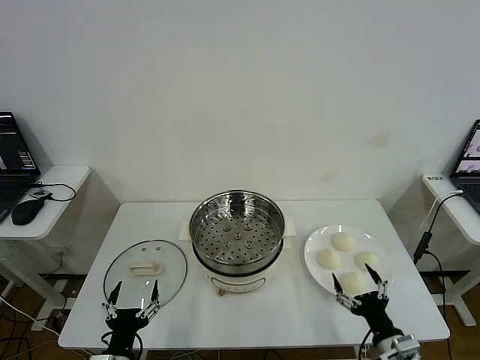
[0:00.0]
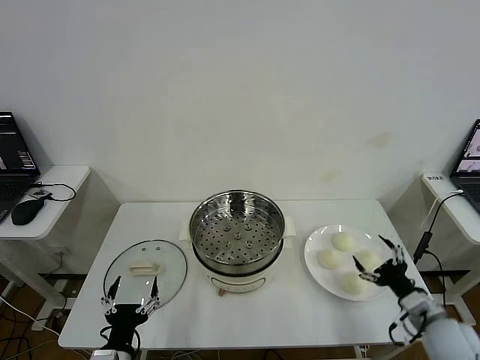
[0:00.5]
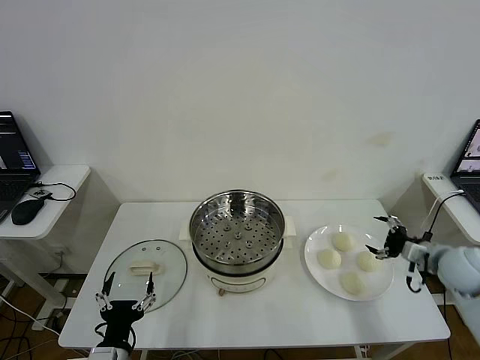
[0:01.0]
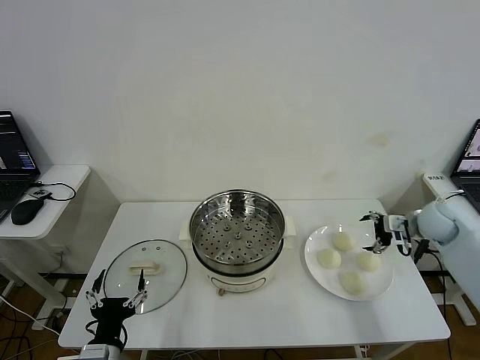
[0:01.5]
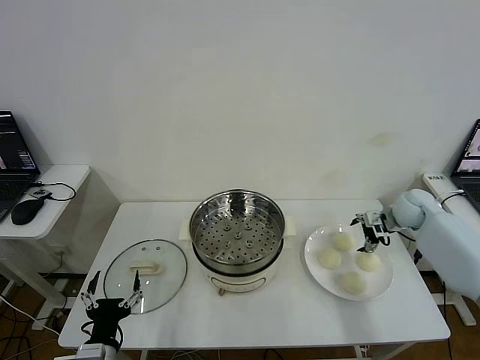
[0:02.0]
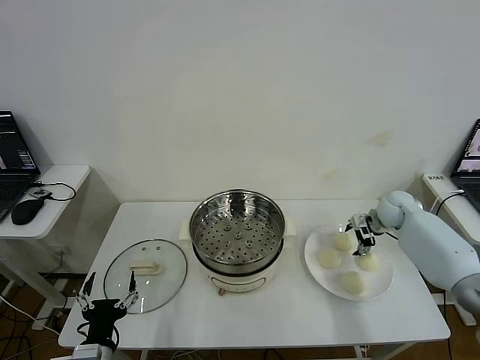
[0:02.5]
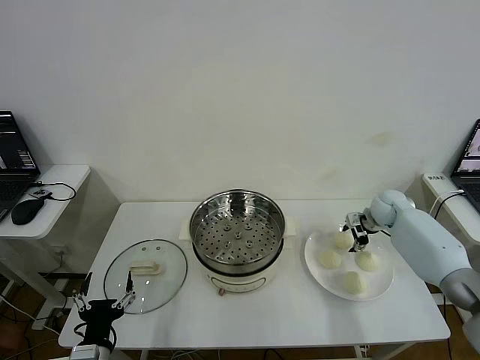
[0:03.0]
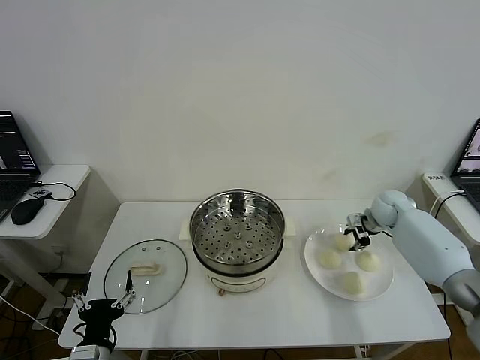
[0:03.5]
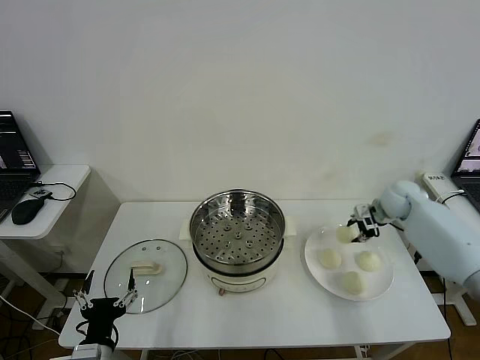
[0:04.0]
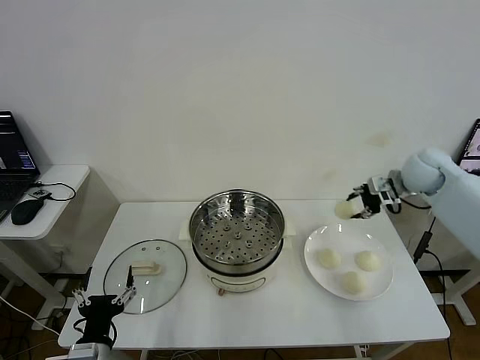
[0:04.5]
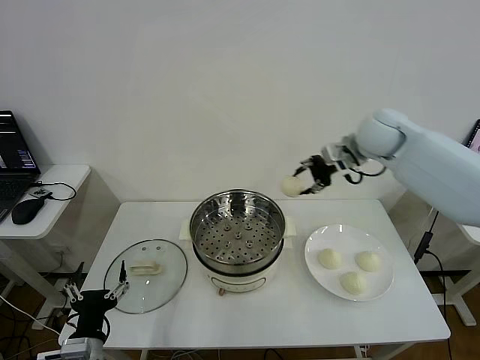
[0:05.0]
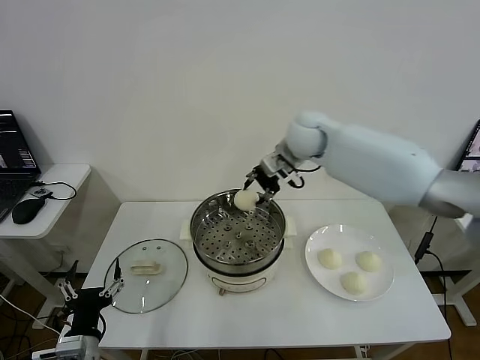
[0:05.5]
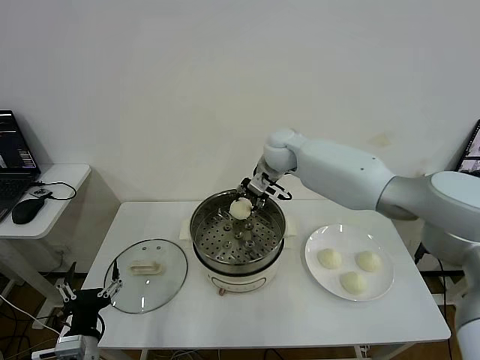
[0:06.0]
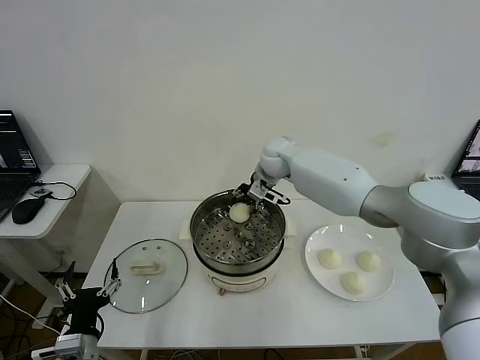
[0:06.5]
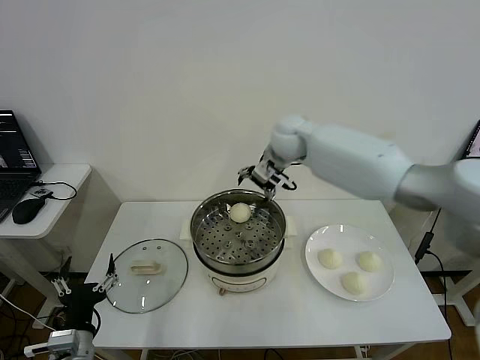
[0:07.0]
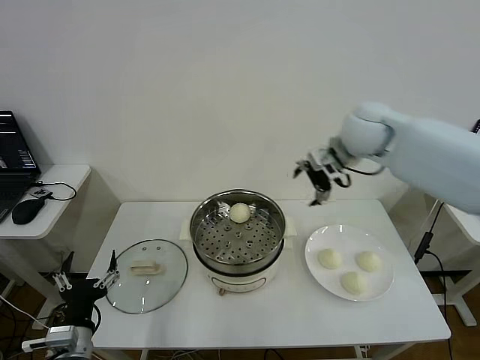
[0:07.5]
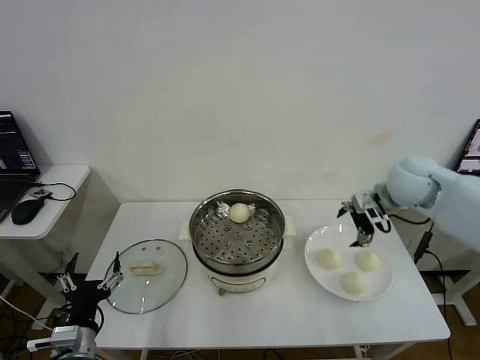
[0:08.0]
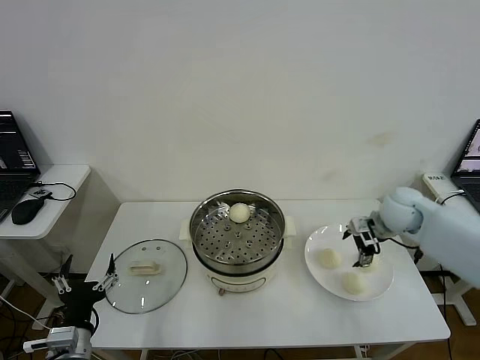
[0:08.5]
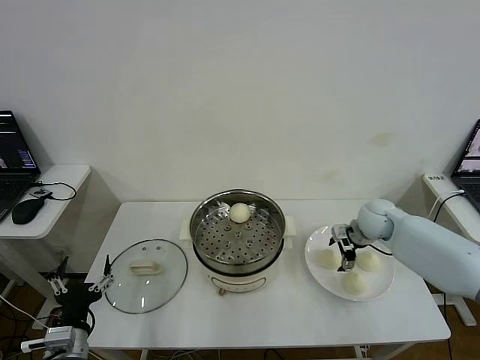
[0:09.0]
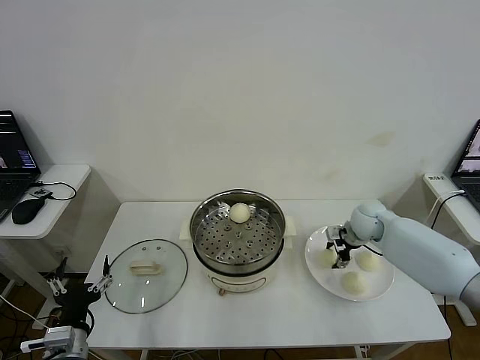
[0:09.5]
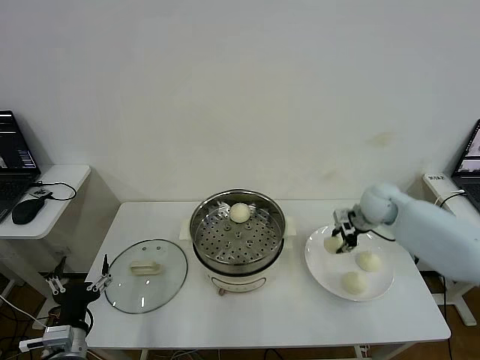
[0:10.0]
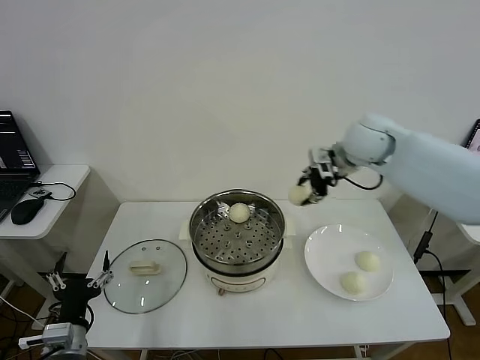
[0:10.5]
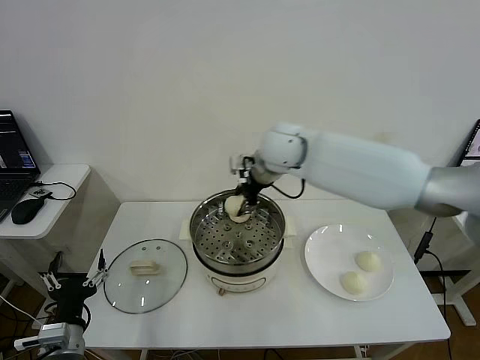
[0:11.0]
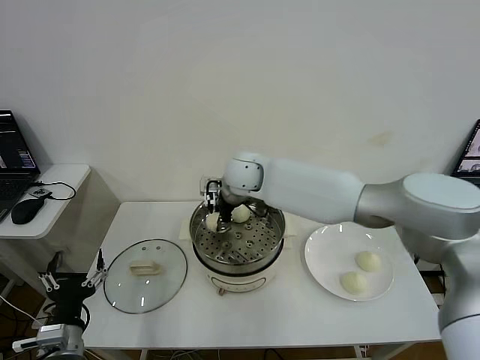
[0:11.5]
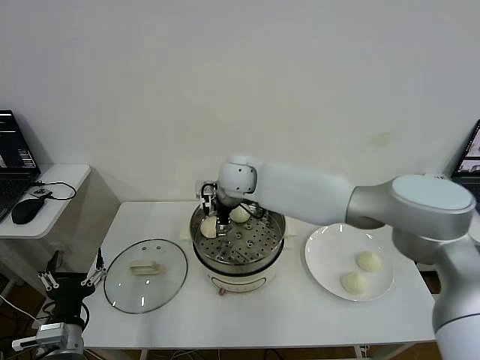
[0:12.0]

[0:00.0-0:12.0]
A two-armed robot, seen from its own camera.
Step, 0:00.0 to 0:03.5: Grasp the baozi in the plate with right gripper.
Step, 0:04.0 to 0:06.5: Place the baozi on the steamer with right gripper.
Step, 0:07.0 to 0:09.5: Grasp the baozi in the plate with right gripper.
Step, 0:10.0 to 0:12.0: Place the baozi on the steamer with right gripper.
0:02.0 to 0:04.0: The right gripper closes.
0:04.0 to 0:06.0: The right gripper heads to the left, covering roughly 30 cm.
0:06.0 to 0:08.0: The right gripper heads to the right and backward, covering approximately 30 cm, and opens its fingers.
0:08.0 to 0:10.0: The right gripper travels downward and forward by approximately 10 cm, and closes.
0:10.0 to 0:12.0: The right gripper travels to the left by about 35 cm, and opens up.

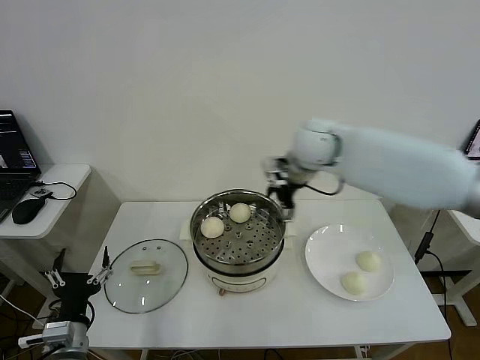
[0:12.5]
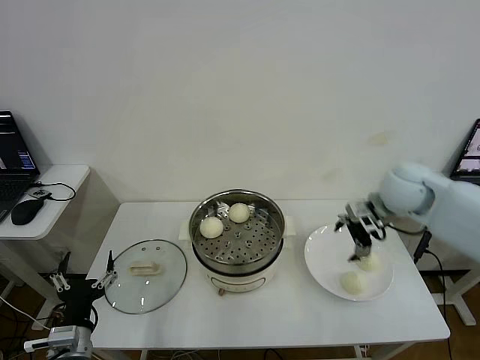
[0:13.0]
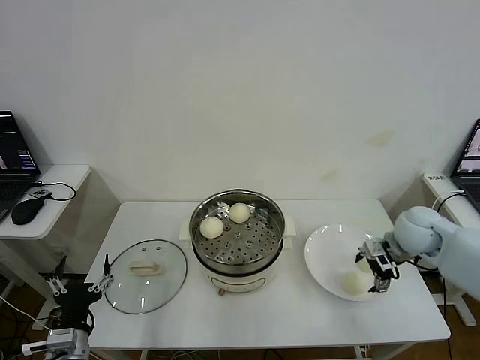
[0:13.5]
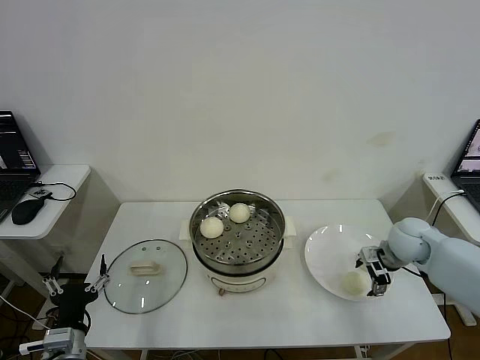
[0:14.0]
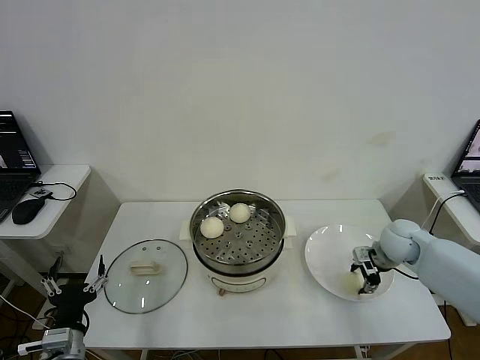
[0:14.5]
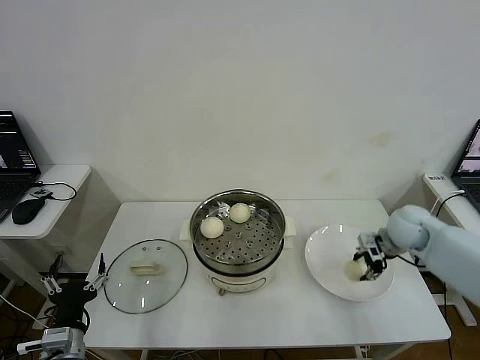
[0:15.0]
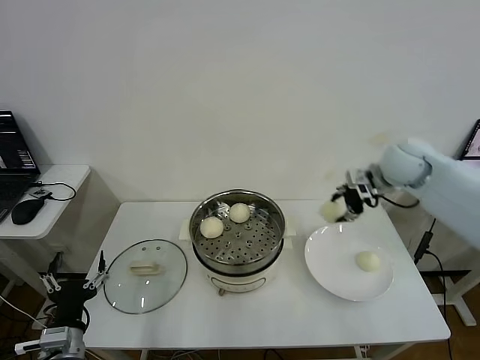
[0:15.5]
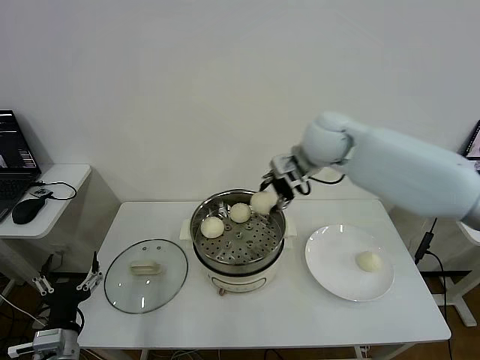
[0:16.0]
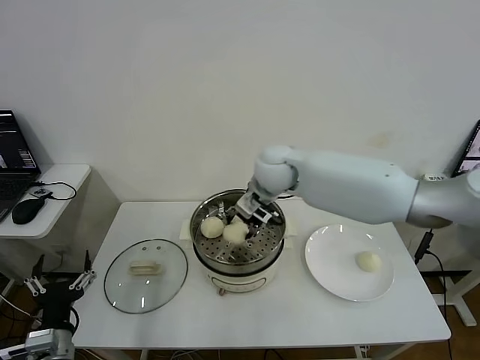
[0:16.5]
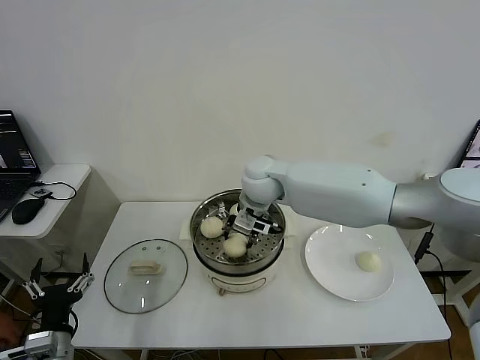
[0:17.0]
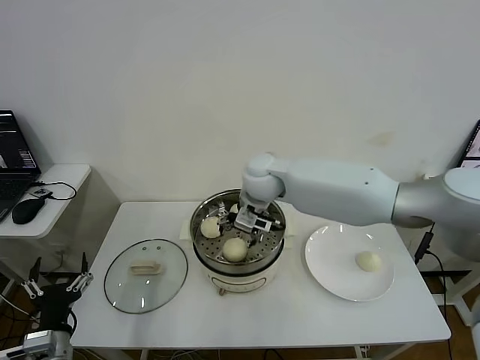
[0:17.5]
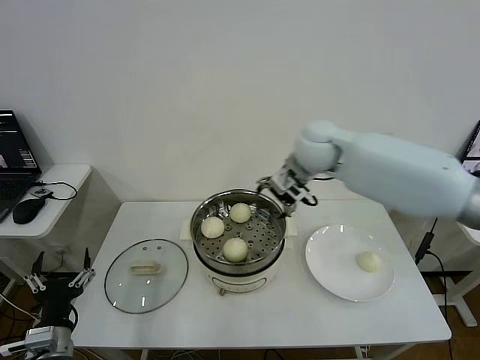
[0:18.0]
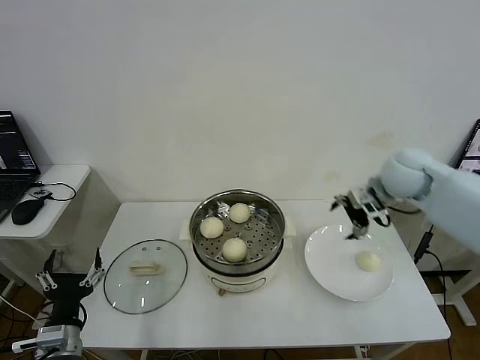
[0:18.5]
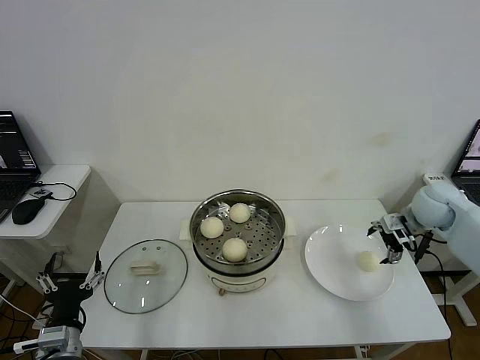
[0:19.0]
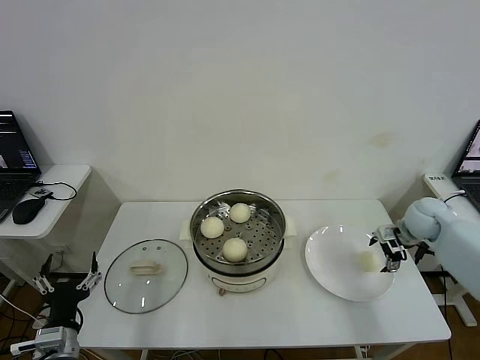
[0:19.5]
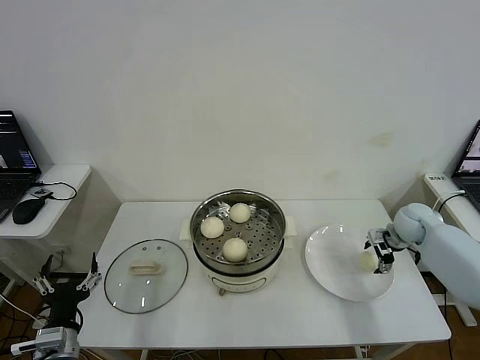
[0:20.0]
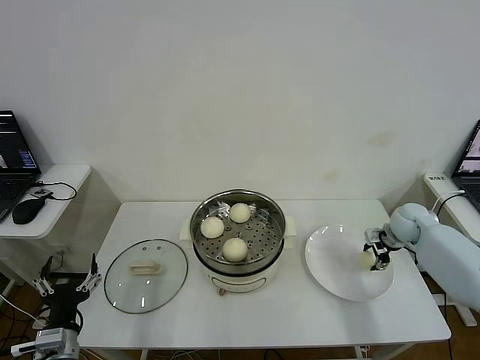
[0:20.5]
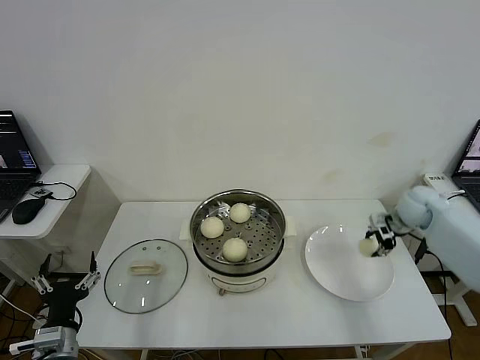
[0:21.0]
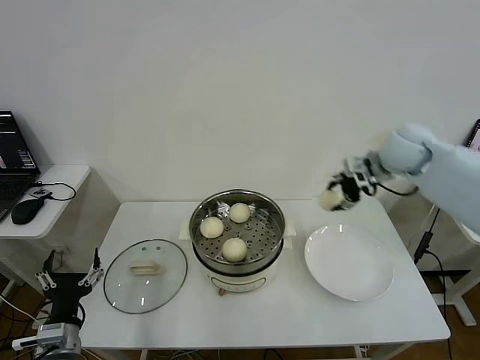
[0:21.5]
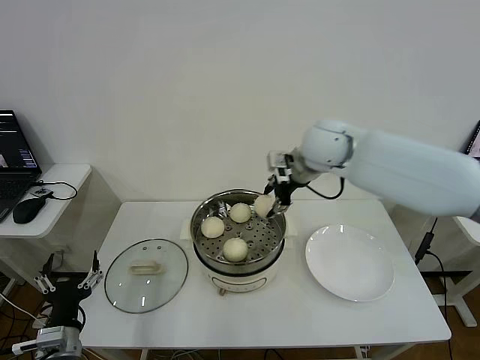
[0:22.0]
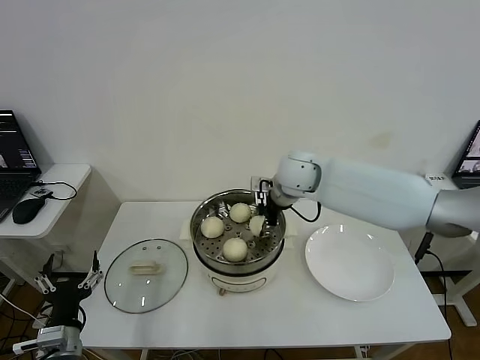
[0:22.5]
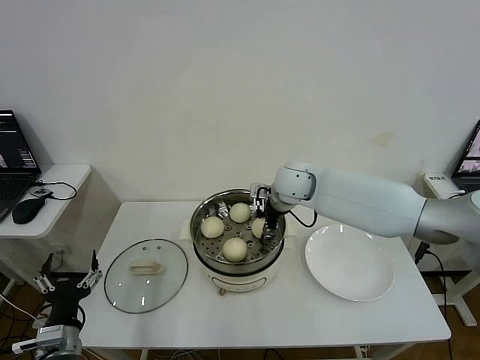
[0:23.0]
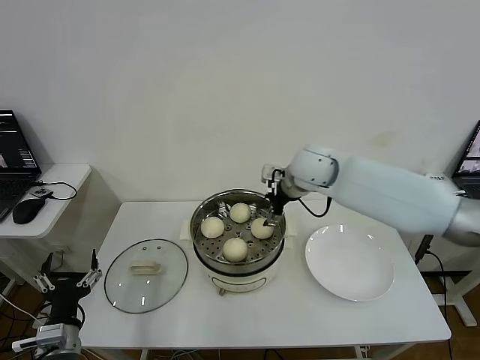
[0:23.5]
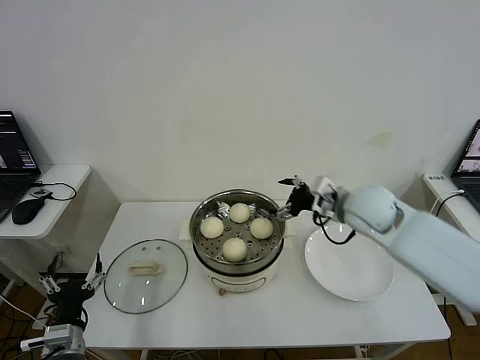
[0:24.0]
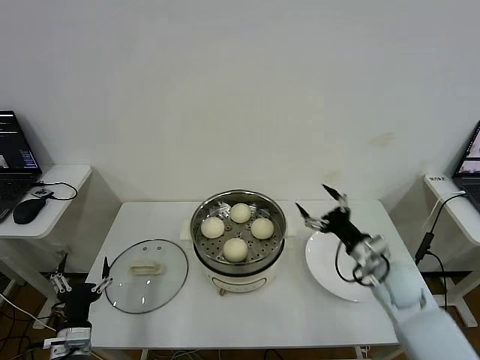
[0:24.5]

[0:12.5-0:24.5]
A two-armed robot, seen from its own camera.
Step, 0:12.5 to 0:14.5: Grasp the baozi in the plate with right gripper.
Step, 0:15.0 to 0:17.0: Place the baozi on the steamer with right gripper.
Step, 0:17.5 to 0:20.5: Grasp the baozi in the plate with right gripper.
Step, 0:21.0 to 0:23.0: Place the baozi on the steamer with right gripper.
0:12.5 to 0:14.5: The right gripper goes about 30 cm downward and to the right, and closes its fingers.
0:14.5 to 0:16.5: The right gripper shifts roughly 35 cm to the left and upward.
0:16.5 to 0:18.5: The right gripper travels to the right by approximately 25 cm, and opens its fingers.
0:18.5 to 0:20.5: The right gripper is displaced downward and to the right by about 20 cm, and closes.
0:20.5 to 0:22.5: The right gripper moves to the left and upward, some 35 cm.
0:22.5 to 0:24.5: The right gripper shifts some 30 cm to the right, backward and downward, and opens its fingers.

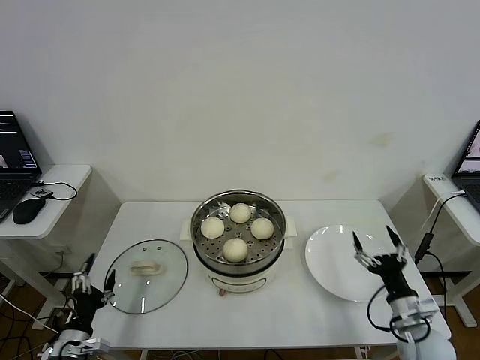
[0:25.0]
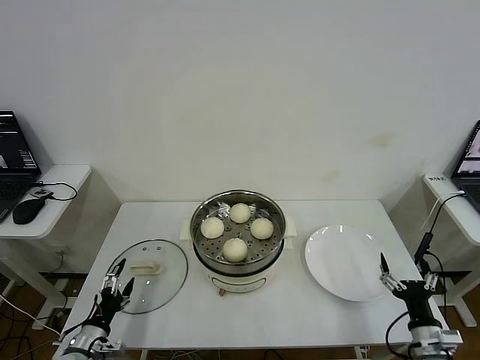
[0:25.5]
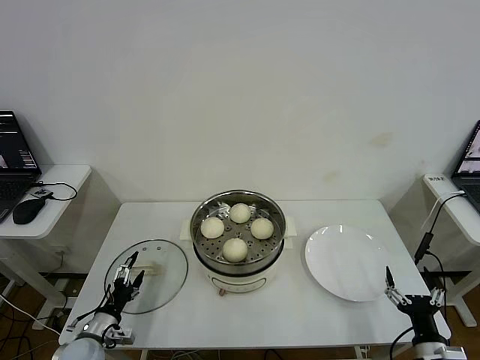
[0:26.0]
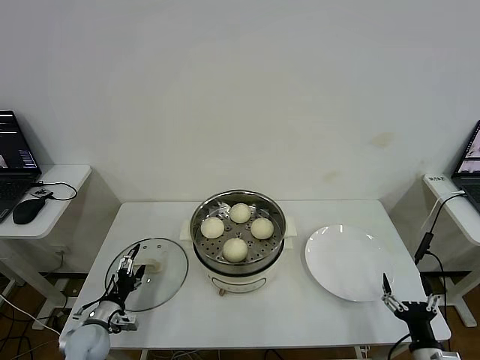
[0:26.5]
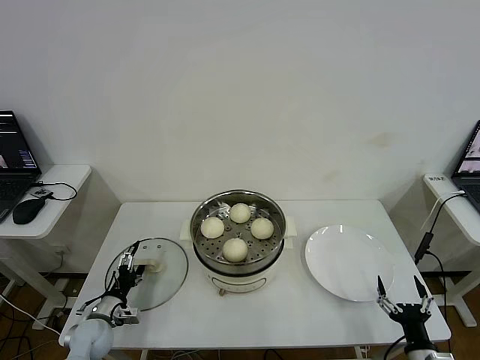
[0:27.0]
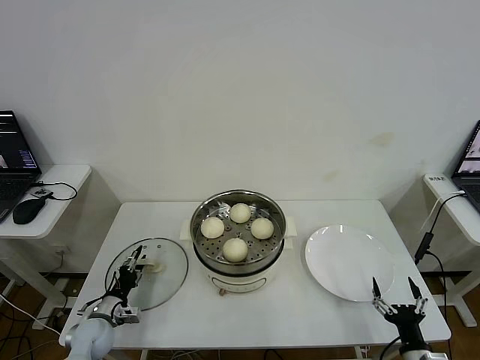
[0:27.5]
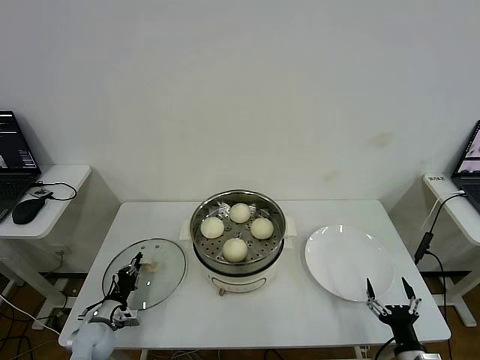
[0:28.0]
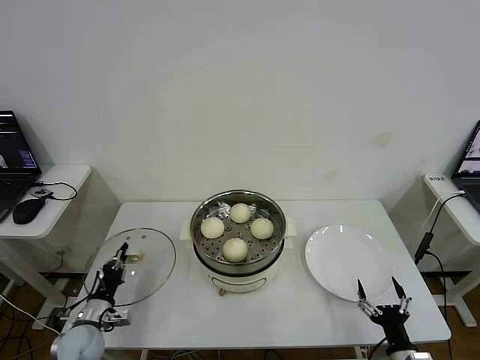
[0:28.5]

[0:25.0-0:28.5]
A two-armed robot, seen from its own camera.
Step, 0:25.0 to 0:28.0: Grasp the pot lid with left gripper.
0:25.0 to 0:27.0: The right gripper goes roughly 10 cm backward and downward; the left gripper heads forward and downward, covering about 10 cm.
0:27.0 to 0:28.5: The left gripper closes up.
